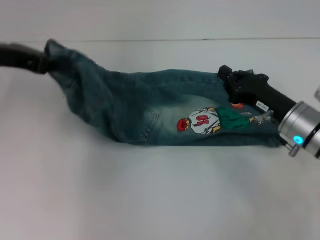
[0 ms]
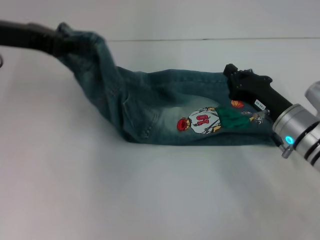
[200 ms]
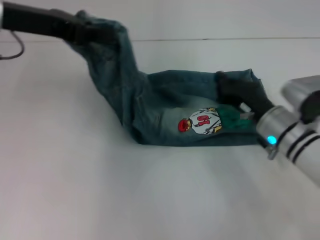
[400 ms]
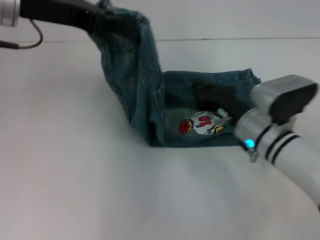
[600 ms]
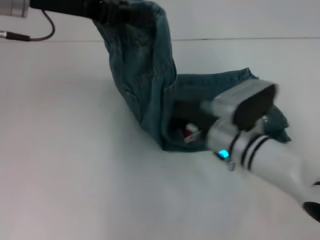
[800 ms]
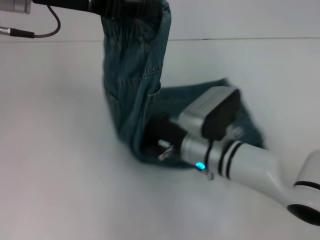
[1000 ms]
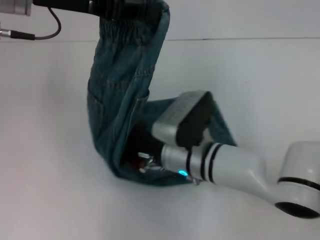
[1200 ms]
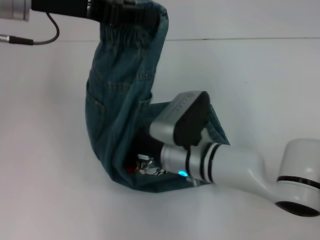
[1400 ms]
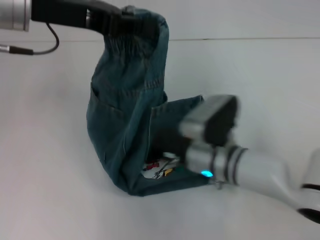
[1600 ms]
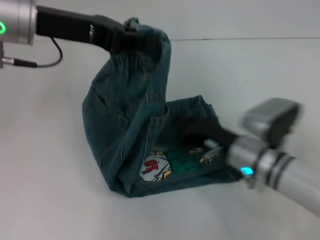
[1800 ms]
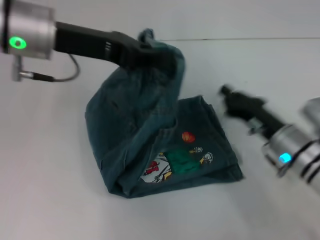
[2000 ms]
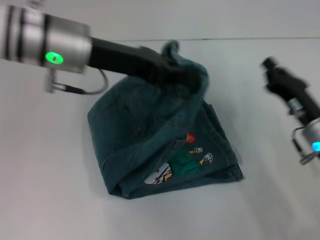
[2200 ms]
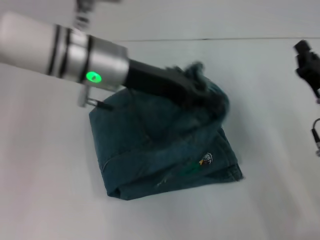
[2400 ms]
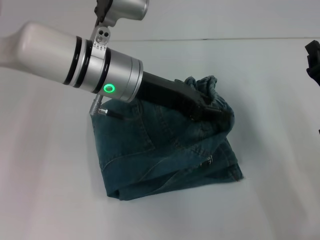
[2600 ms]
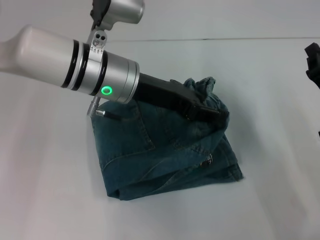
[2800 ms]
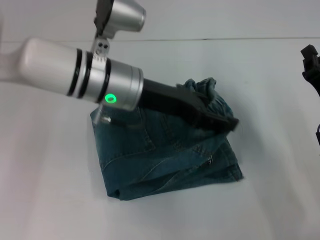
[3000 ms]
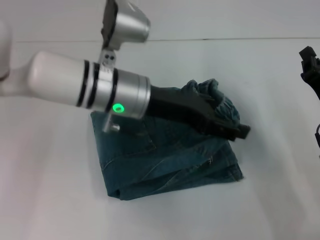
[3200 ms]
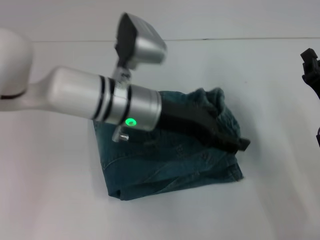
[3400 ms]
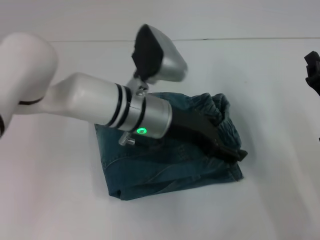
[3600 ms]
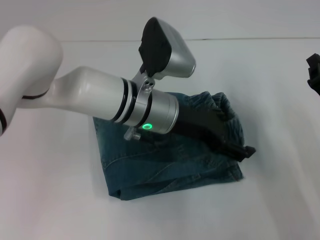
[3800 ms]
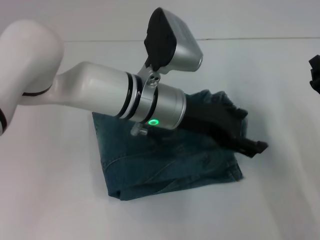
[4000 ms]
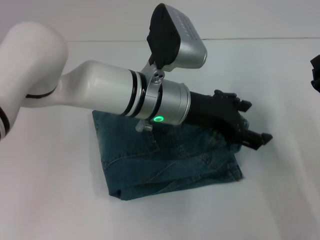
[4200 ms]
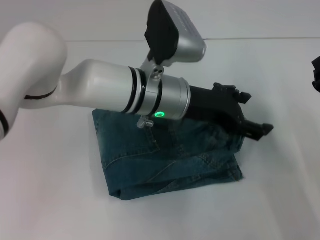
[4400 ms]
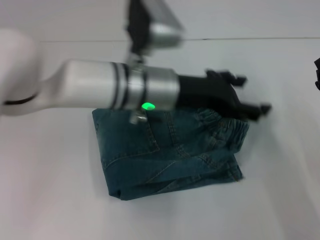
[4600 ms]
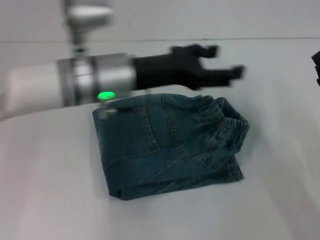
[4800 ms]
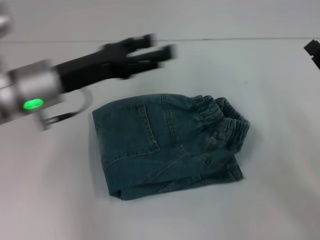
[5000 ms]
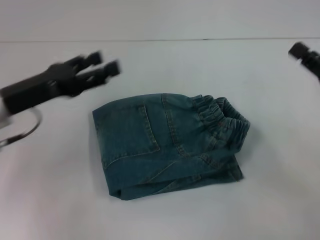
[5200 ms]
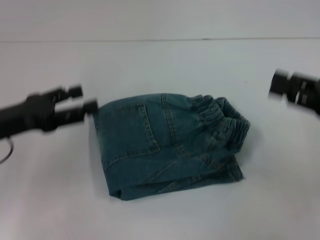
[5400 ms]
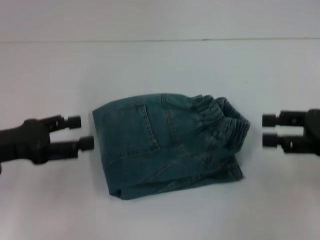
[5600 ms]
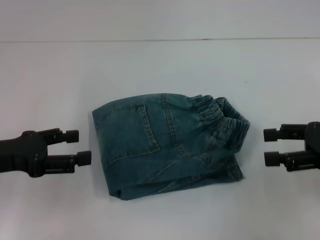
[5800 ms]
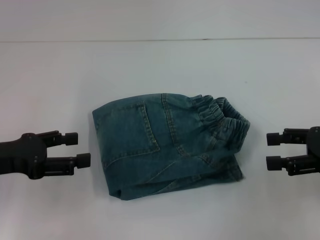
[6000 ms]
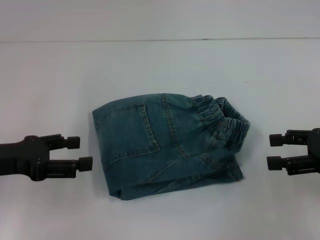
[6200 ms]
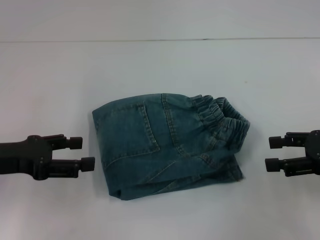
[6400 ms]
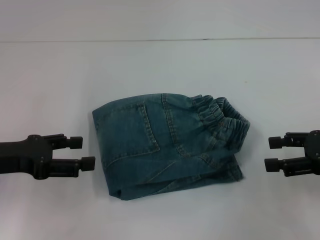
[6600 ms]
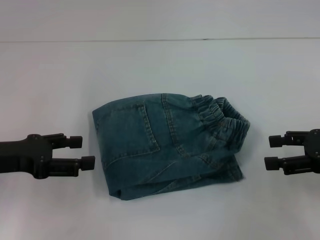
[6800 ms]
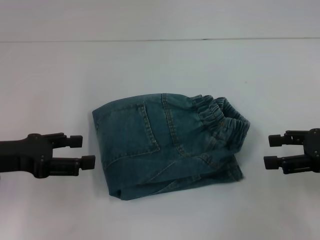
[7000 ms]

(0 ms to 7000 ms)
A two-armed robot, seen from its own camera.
Step, 0 ms - 1600 ms: Press the middle of the pants with your right hand.
Step, 1800 ms - 4600 ms: Fold to the right with your left hand.
0 ms - 1400 ms: The right gripper moves to the left, about 20 cm. The left gripper goes roughly 10 cm to the right and upward.
1400 ms - 2800 ms: The left gripper is displaced to the right and downward by roughly 15 cm. Meanwhile the right gripper shifts about 25 cm to the right.
2800 ms - 4200 ms: The left gripper goes about 5 cm to the right, and opens up.
4200 ms - 5600 ms: The left gripper shifts about 25 cm to the left. Meanwhile the right gripper goes about 10 cm upward, and opens its fingers.
5600 ms - 7000 ms: The right gripper opens.
